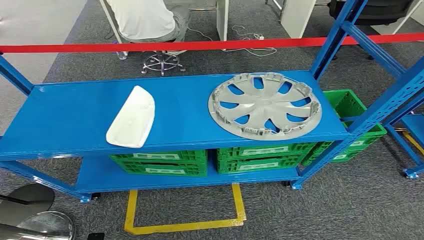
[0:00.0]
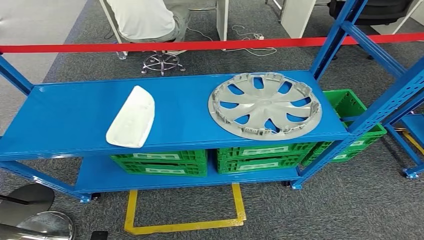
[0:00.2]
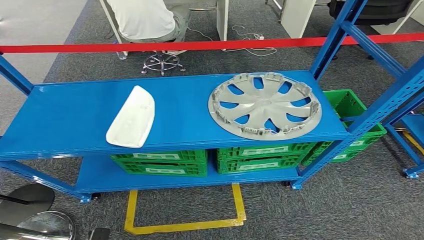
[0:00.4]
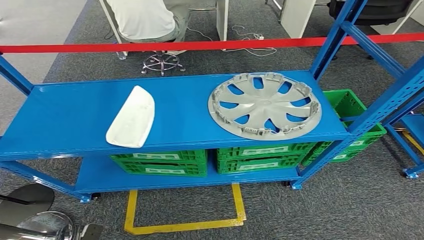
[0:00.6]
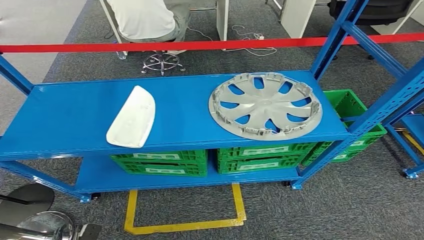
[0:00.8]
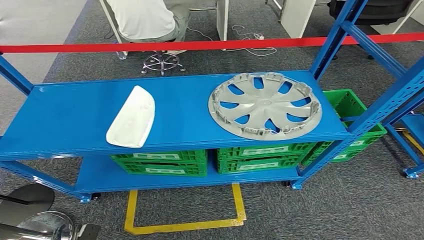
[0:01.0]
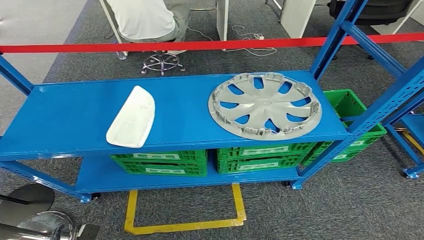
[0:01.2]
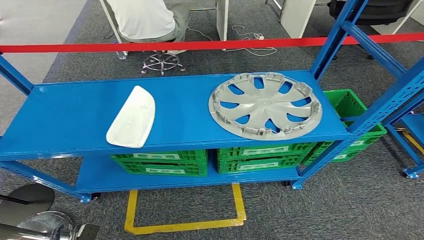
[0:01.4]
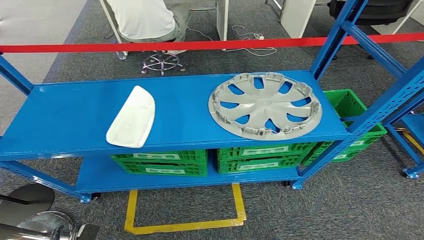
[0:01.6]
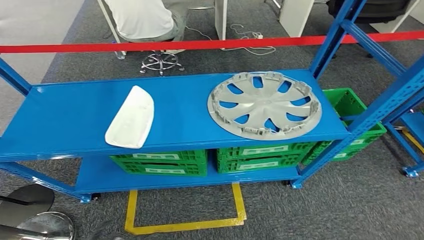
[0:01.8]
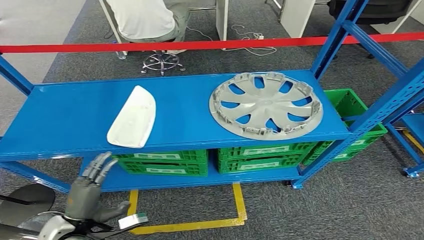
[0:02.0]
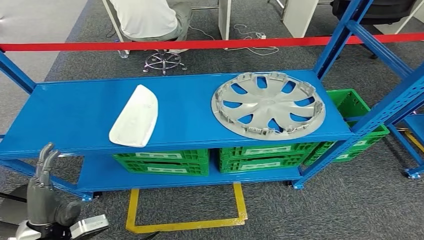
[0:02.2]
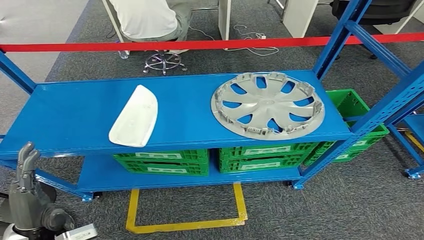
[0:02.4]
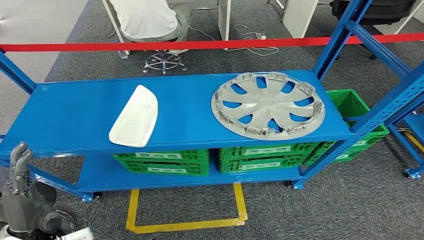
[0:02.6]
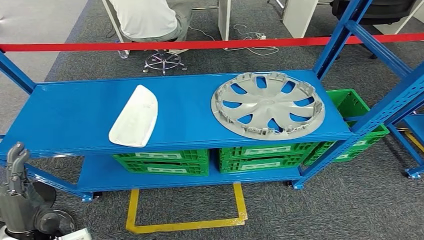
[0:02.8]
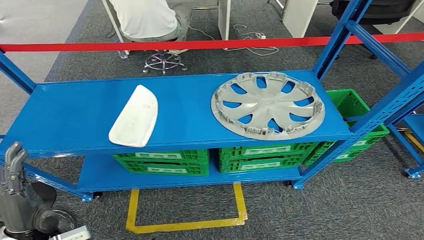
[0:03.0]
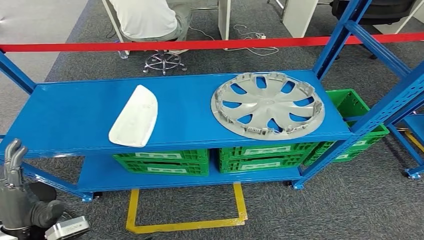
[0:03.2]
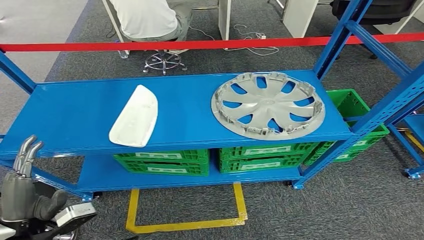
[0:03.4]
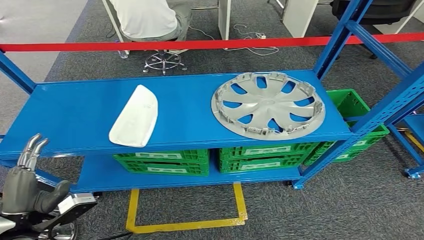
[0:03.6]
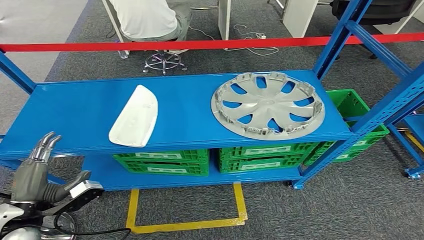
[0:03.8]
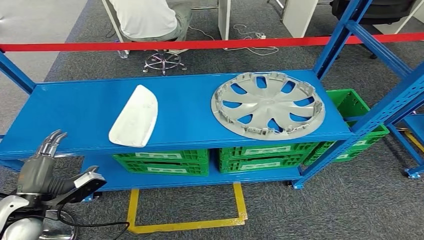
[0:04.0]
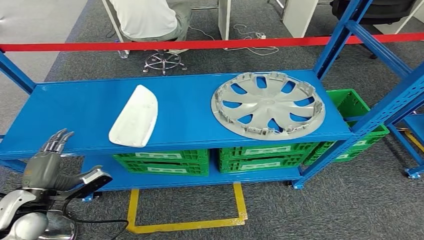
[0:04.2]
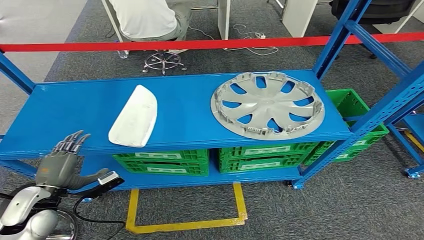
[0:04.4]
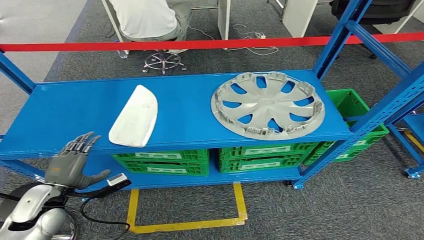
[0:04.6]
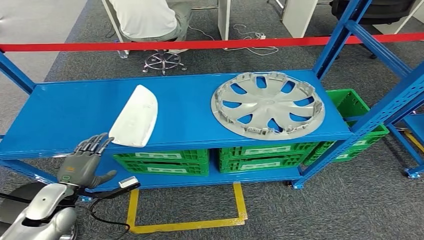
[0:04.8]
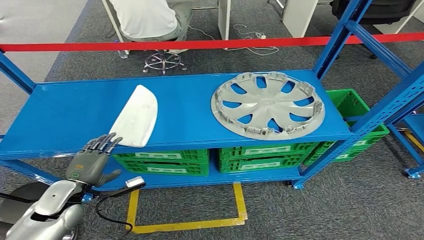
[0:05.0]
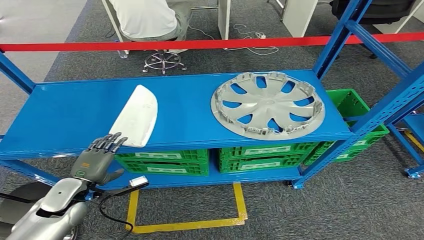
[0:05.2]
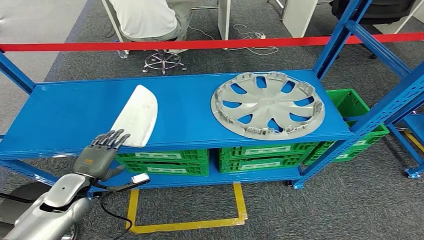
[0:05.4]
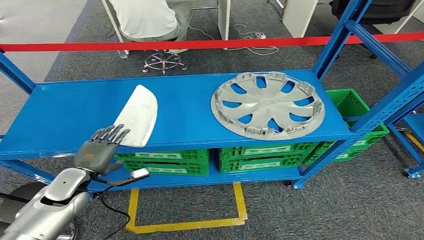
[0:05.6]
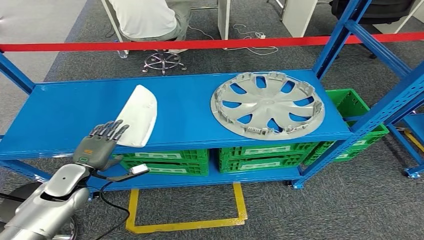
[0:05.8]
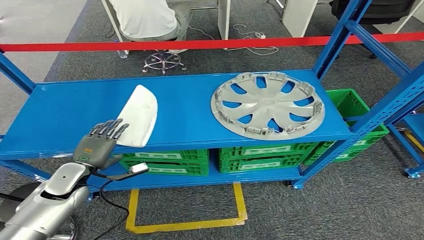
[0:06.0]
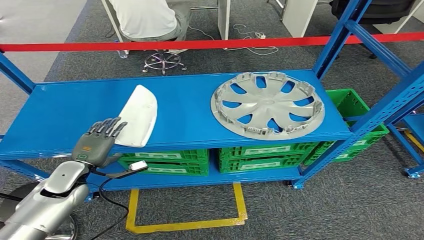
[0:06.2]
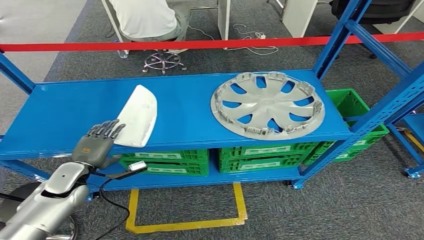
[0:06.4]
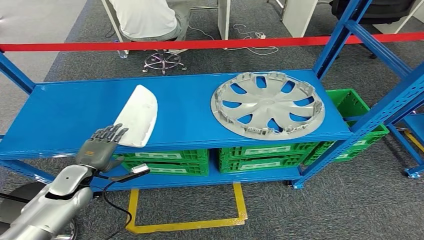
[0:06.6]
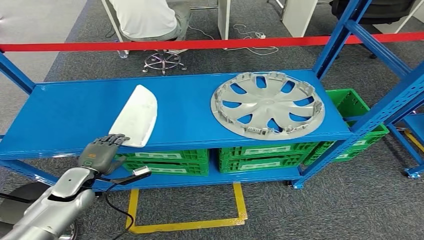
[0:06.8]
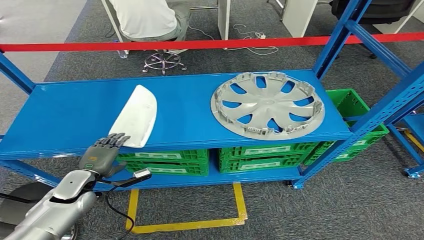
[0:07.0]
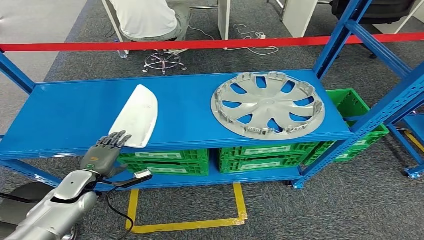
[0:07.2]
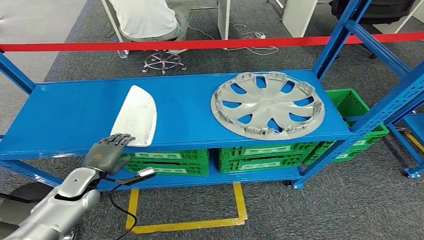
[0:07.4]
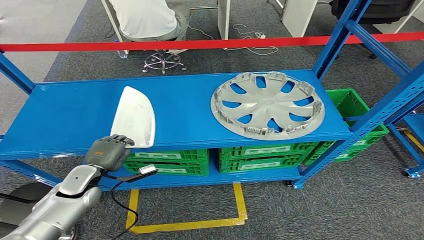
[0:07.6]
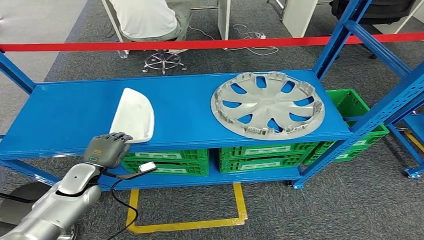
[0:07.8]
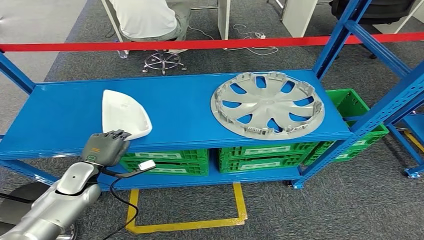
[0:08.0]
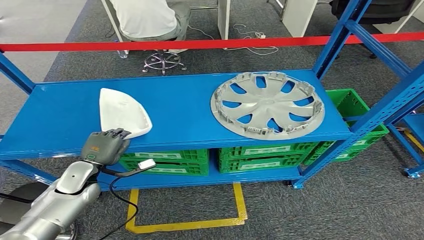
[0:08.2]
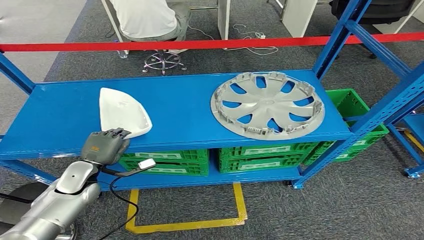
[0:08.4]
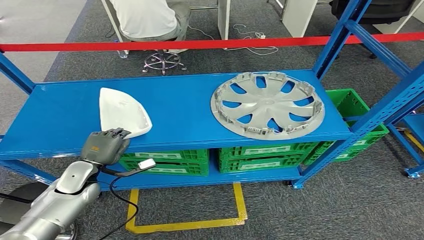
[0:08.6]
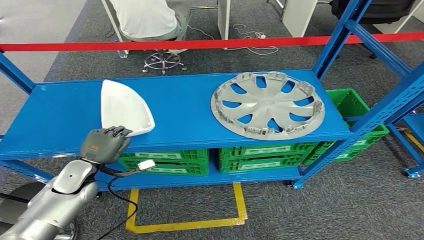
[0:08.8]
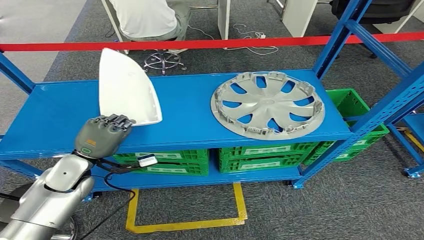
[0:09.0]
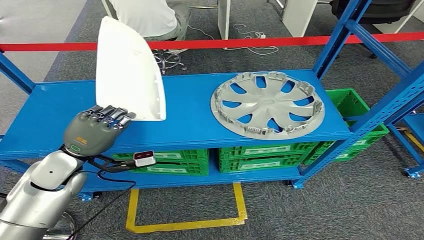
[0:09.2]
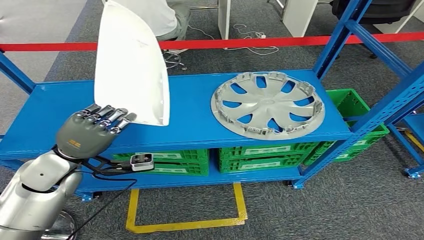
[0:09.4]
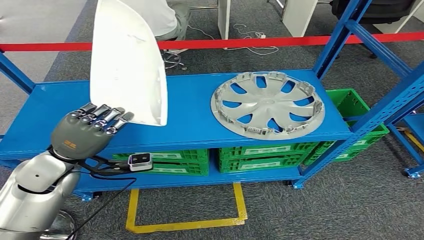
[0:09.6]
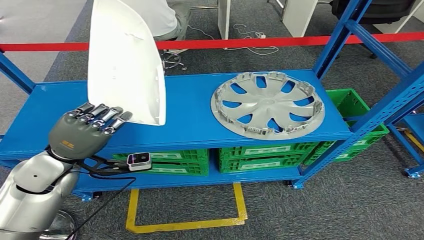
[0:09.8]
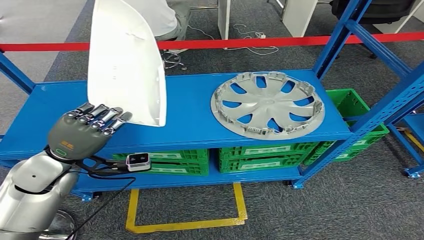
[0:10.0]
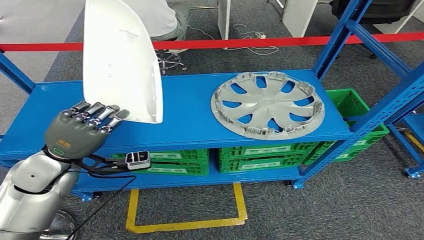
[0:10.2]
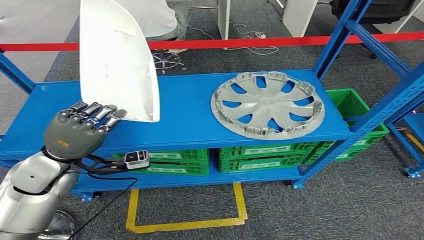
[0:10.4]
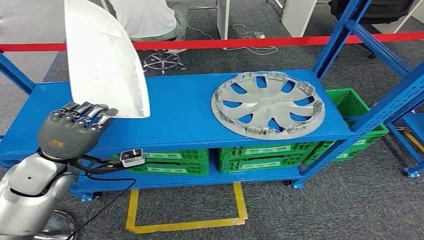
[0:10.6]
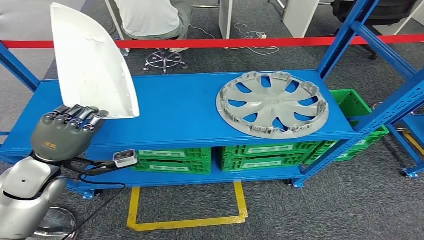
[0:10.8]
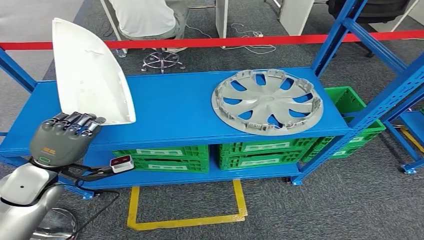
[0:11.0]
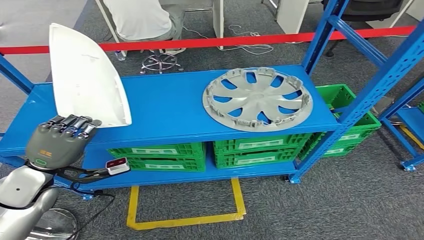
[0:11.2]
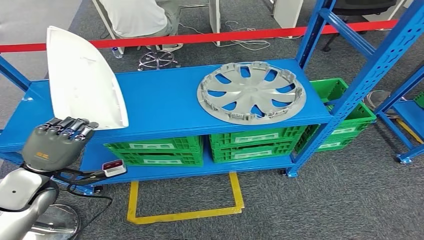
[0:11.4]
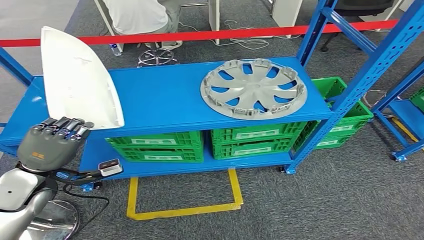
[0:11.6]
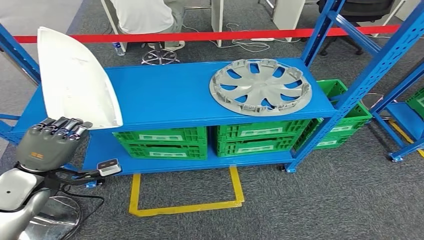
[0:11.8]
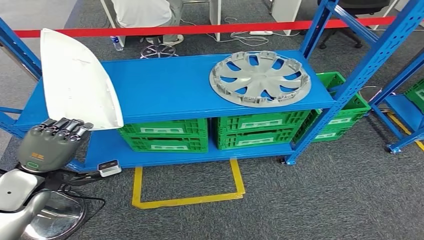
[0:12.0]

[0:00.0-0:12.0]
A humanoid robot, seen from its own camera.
0:01.6 to 0:03.0: The left hand is displaced upward by approximately 25 cm.
0:03.0 to 0:04.4: The left hand goes roughly 10 cm forward and to the left.
0:04.4 to 0:06.0: The left hand moves forward, roughly 10 cm.
0:06.0 to 0:07.6: The hands make only small movements.
0:07.6 to 0:09.0: The left hand is displaced upward by approximately 10 cm.
0:09.0 to 0:10.4: The left hand is displaced upward by some 10 cm.

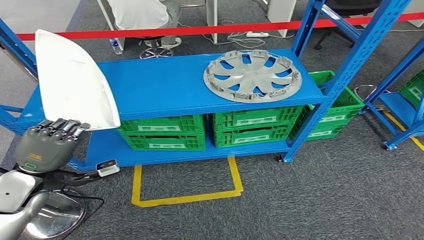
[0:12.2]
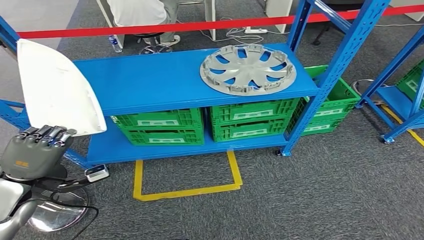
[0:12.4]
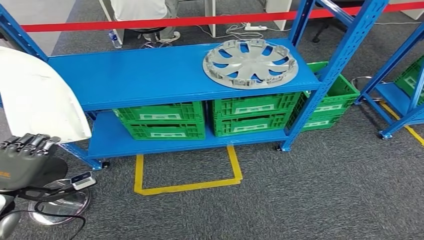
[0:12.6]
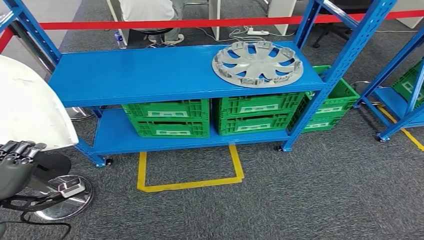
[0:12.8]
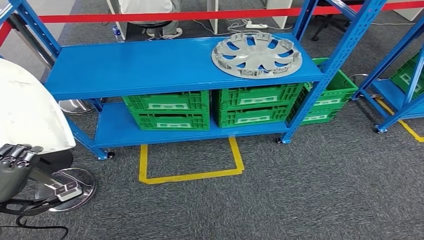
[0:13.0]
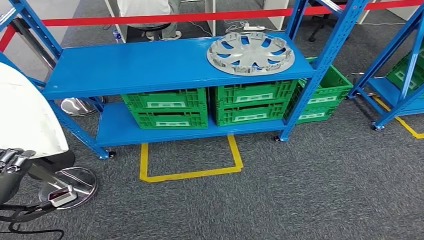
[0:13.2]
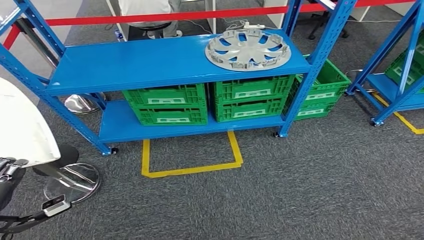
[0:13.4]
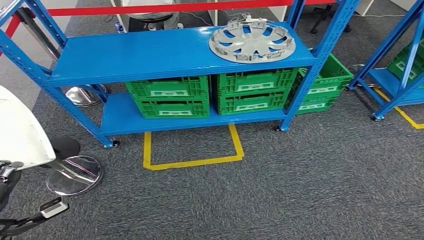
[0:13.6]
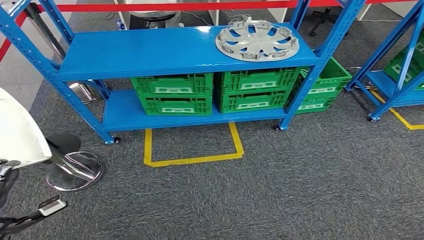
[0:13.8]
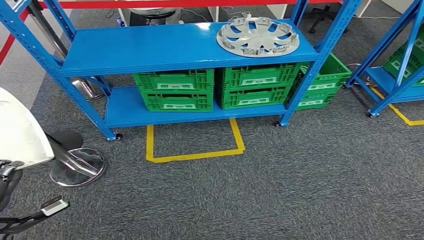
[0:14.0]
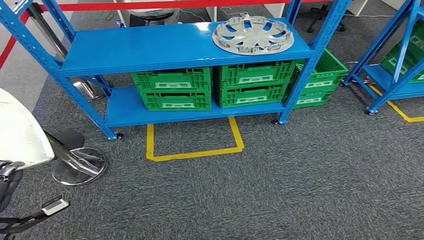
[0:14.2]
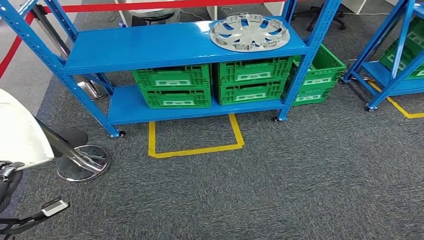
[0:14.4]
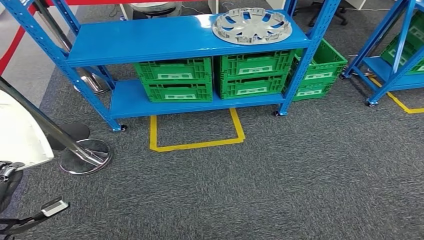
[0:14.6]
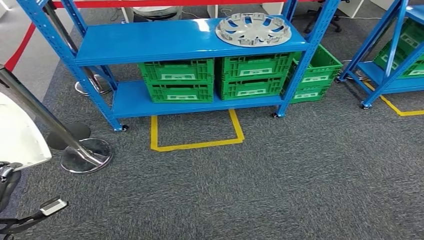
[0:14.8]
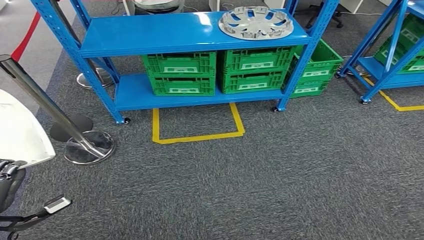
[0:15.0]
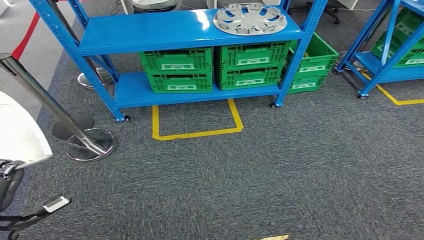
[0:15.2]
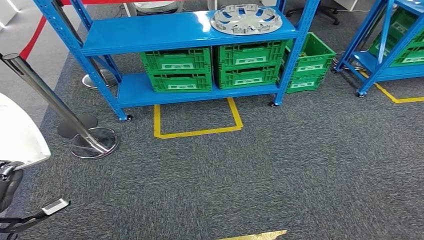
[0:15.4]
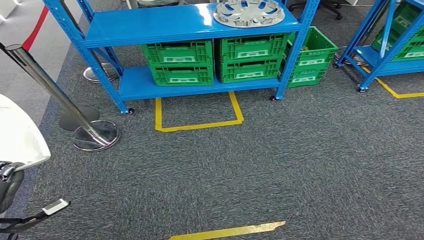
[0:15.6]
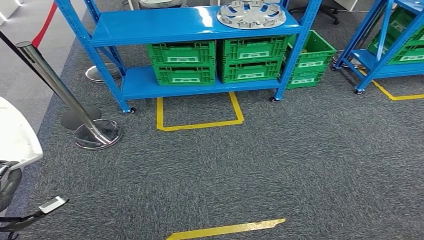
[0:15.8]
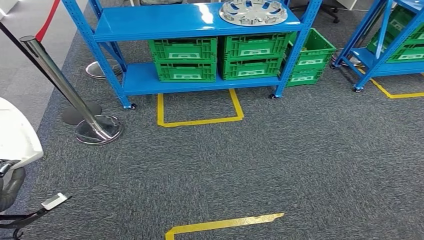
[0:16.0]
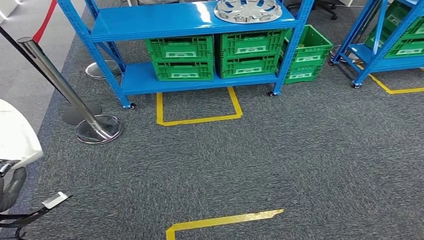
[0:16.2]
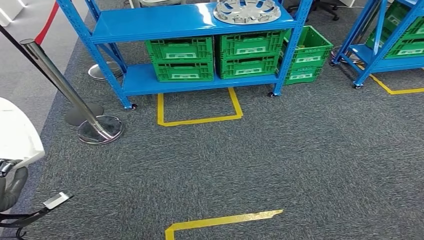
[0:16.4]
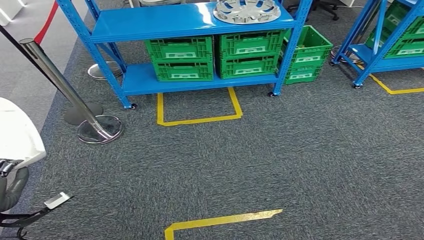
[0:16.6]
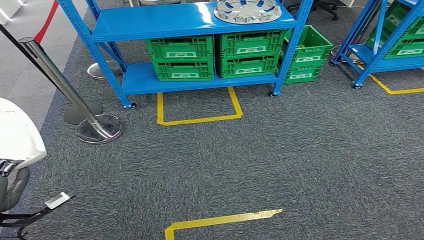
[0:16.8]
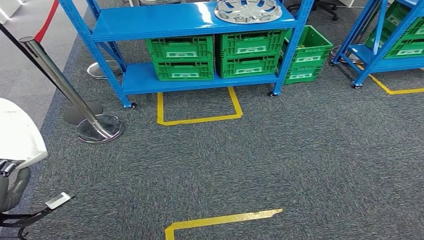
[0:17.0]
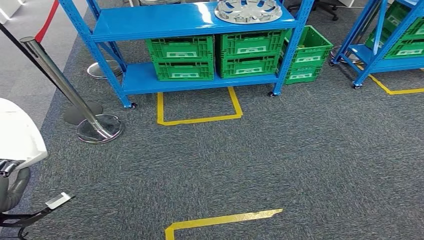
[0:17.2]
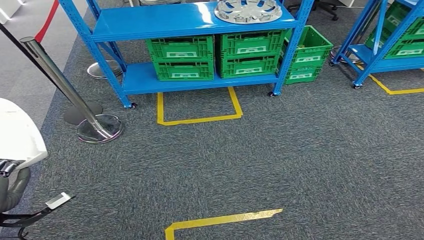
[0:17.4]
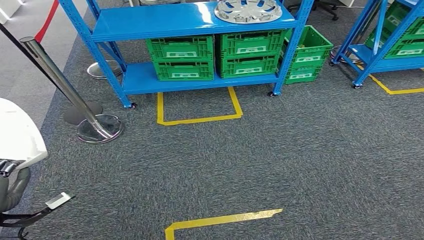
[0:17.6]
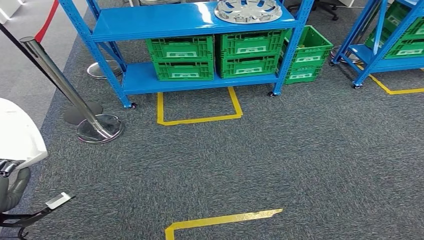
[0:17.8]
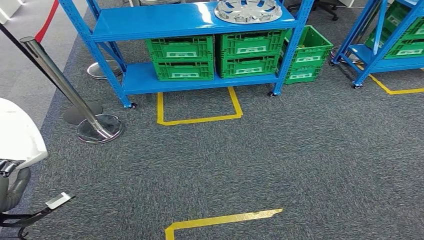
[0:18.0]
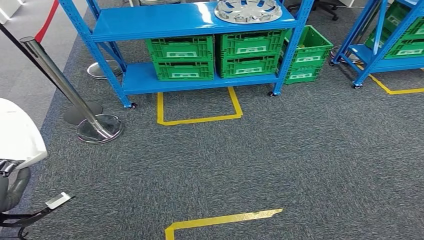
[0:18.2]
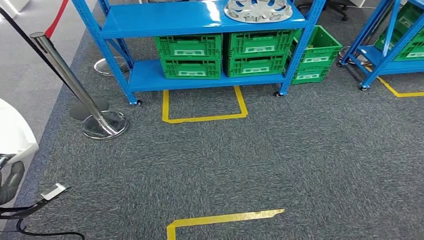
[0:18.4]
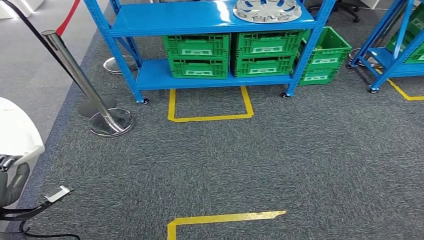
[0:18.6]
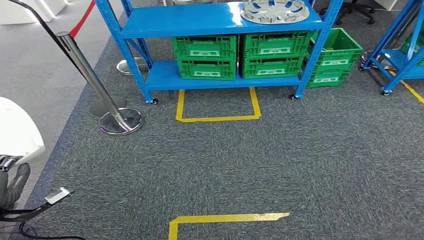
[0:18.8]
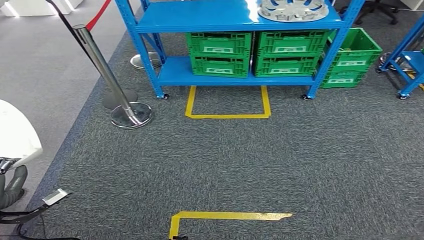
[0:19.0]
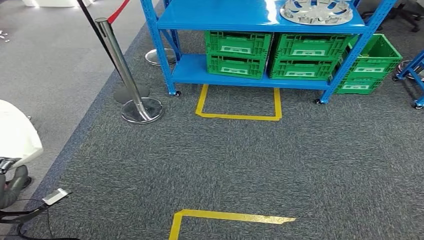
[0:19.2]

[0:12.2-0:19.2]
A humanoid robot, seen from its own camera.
0:16.4 to 0:17.8: Both hands stay about where they are.
